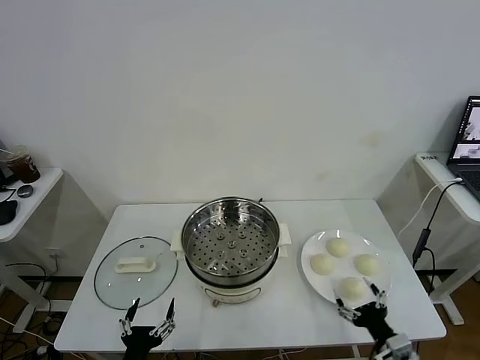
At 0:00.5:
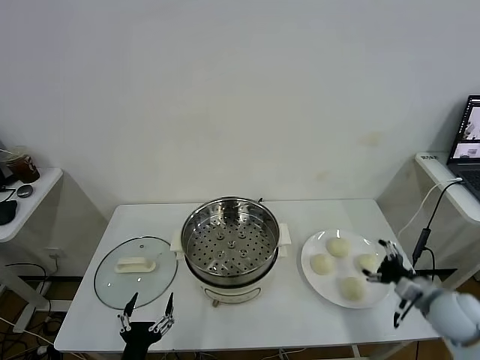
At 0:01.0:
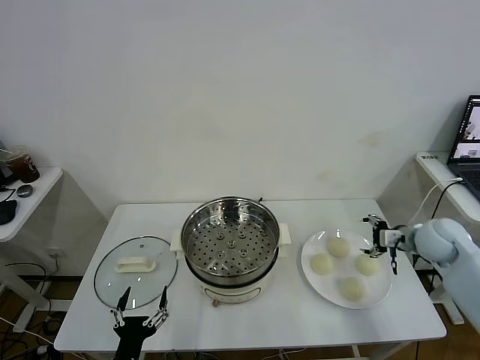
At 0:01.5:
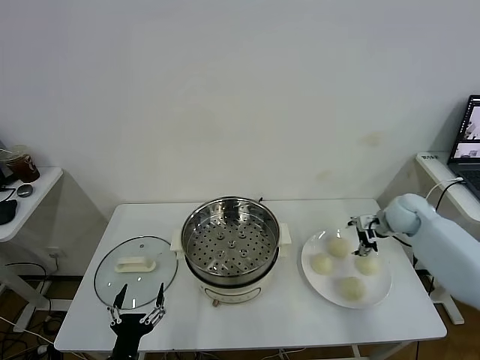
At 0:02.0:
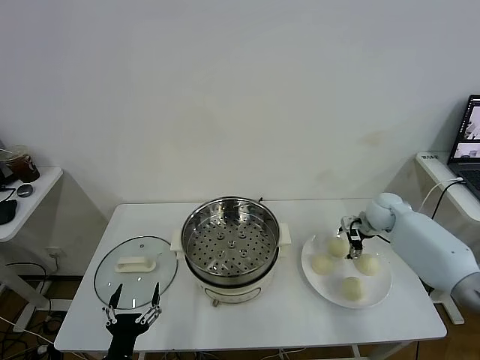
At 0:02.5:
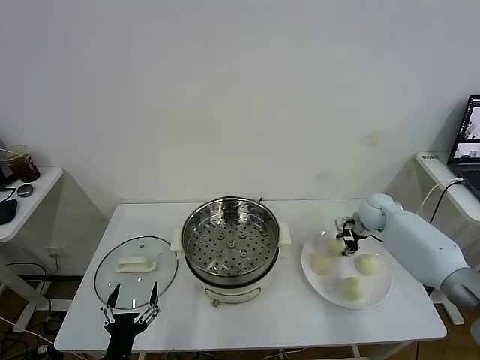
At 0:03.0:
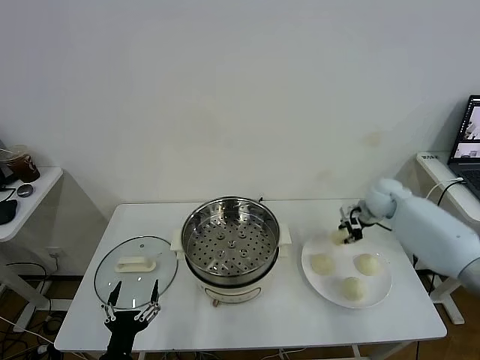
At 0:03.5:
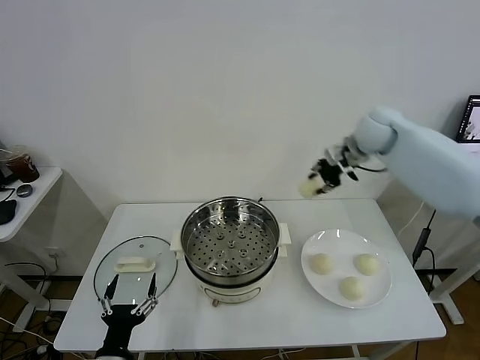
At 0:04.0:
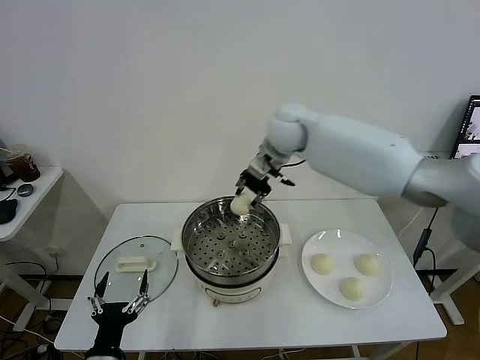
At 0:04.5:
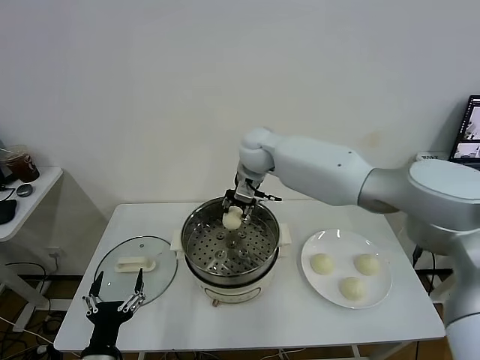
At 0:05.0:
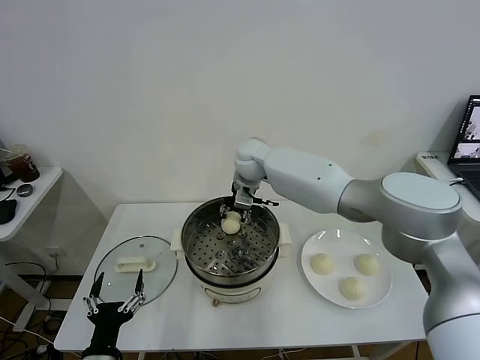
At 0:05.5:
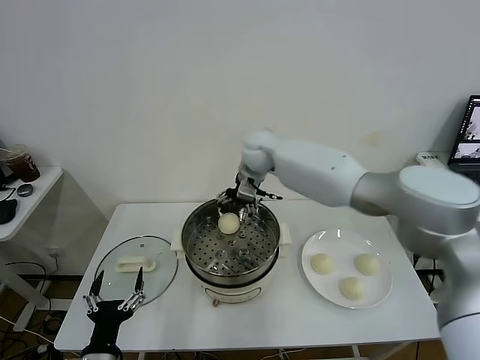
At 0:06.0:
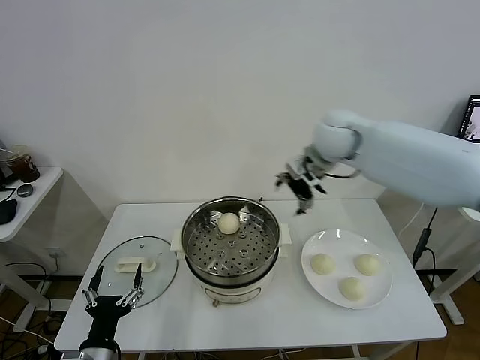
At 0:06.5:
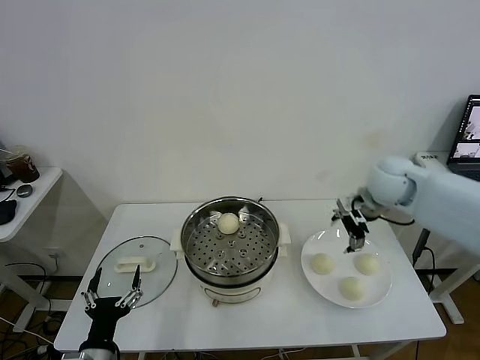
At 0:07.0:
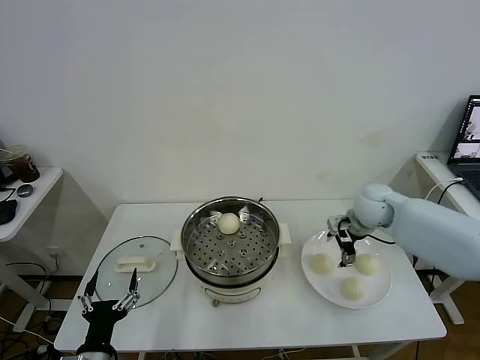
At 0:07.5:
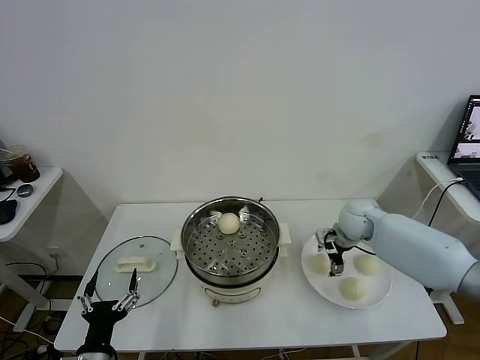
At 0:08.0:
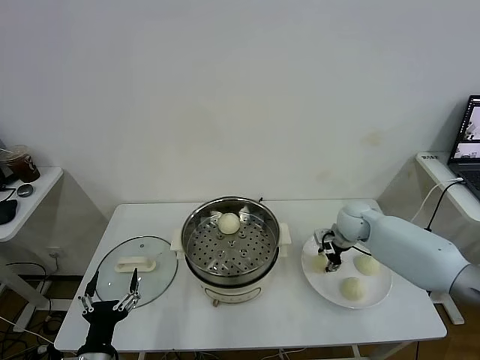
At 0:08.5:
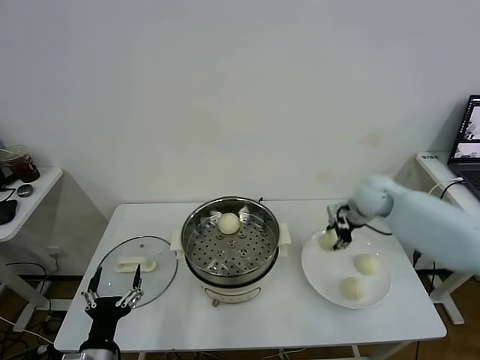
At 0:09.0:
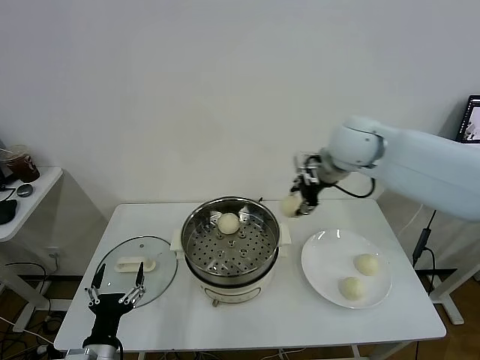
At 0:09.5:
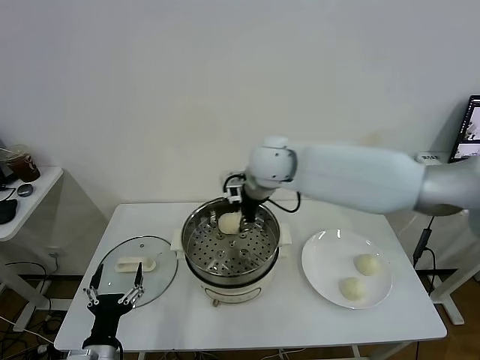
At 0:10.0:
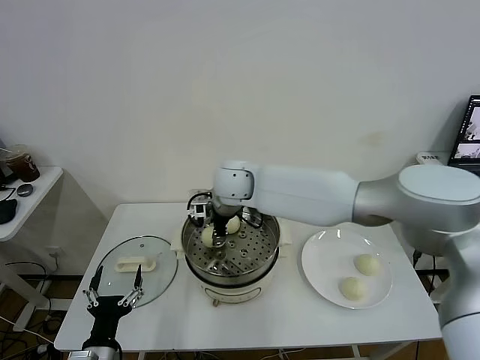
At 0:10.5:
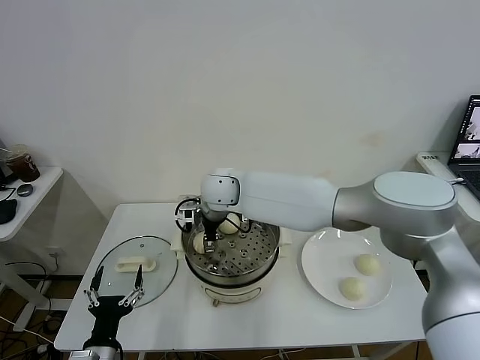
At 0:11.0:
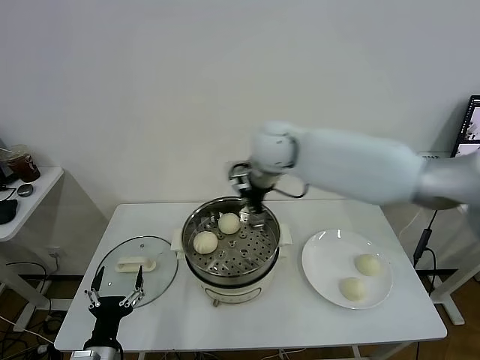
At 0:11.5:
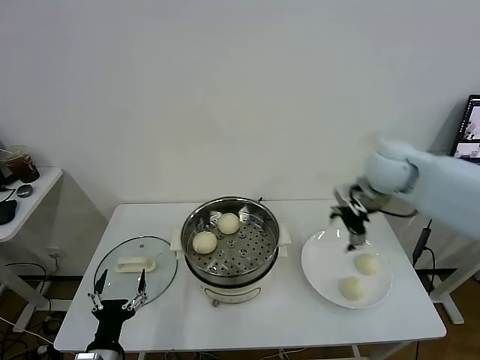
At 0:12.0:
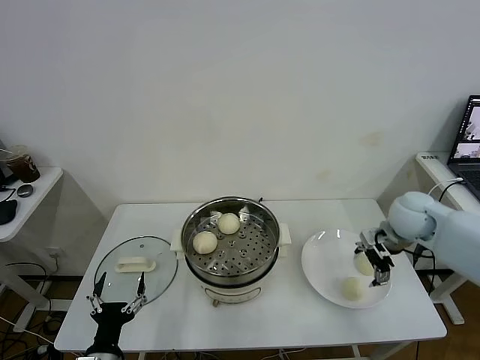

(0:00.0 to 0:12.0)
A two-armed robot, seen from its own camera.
Task of the whole recording: take steamed baozi put them in steamer.
Step, 0:00.0 - 0:02.5: Grasp the baozi in the plate with right gripper.
Step, 0:03.0 - 0:05.5: Place the baozi on the steamer with right gripper.
Step, 0:06.0 - 0:07.5: Grasp the baozi in the plate with right gripper.
Step, 0:08.0 - 0:10.5: Place the baozi on the steamer with right gripper.
0:02.0 - 0:04.0: The right gripper shifts roughly 40 cm to the left and upward, and closes.
0:04.0 - 0:06.0: The right gripper heads to the right, covering approximately 15 cm, and opens up.
0:06.0 - 0:08.0: The right gripper goes roughly 25 cm downward, and closes its fingers.
0:08.0 - 0:10.0: The right gripper moves to the left and upward, about 35 cm.
0:10.0 - 0:12.0: The right gripper heads to the right, covering about 40 cm, and opens its fingers.

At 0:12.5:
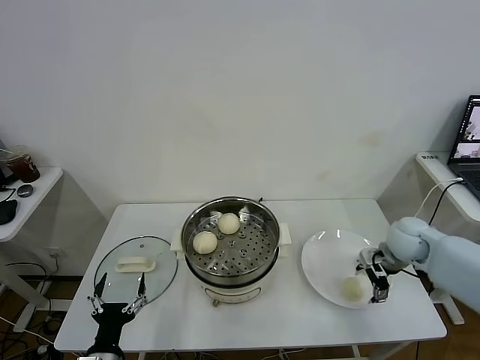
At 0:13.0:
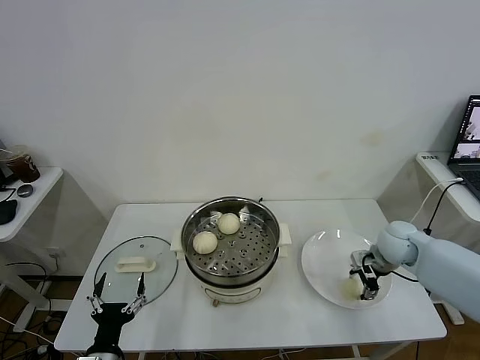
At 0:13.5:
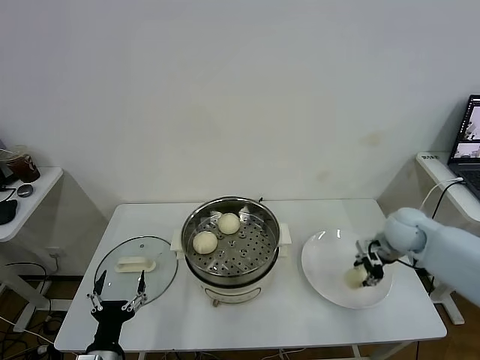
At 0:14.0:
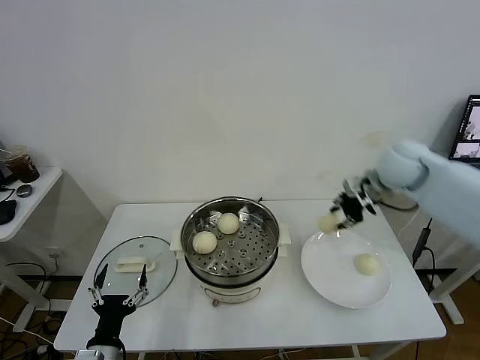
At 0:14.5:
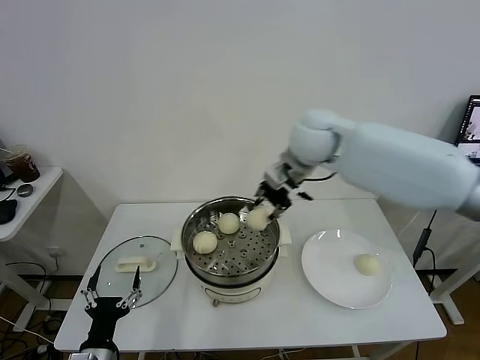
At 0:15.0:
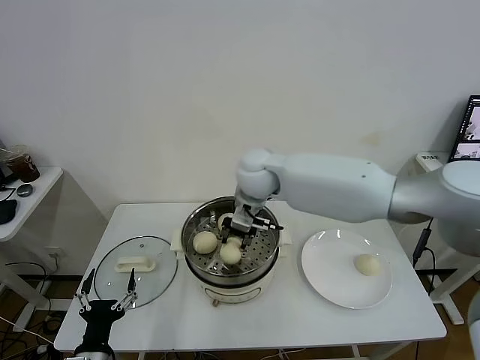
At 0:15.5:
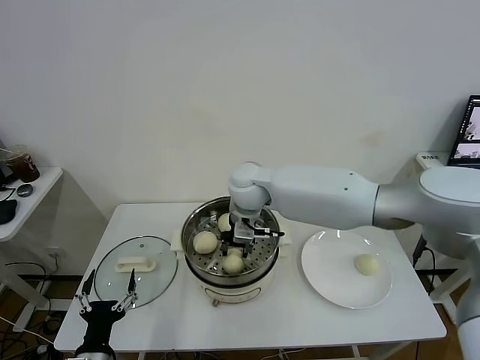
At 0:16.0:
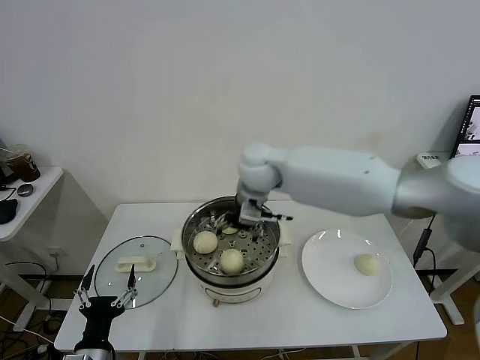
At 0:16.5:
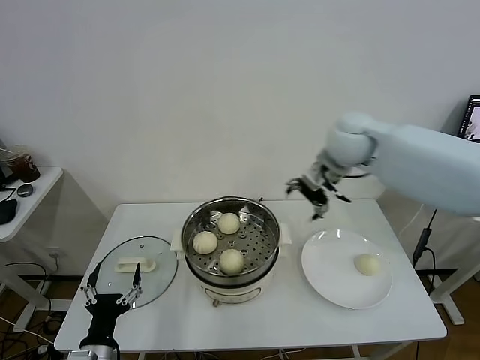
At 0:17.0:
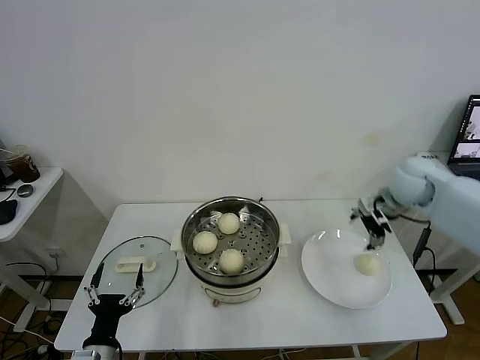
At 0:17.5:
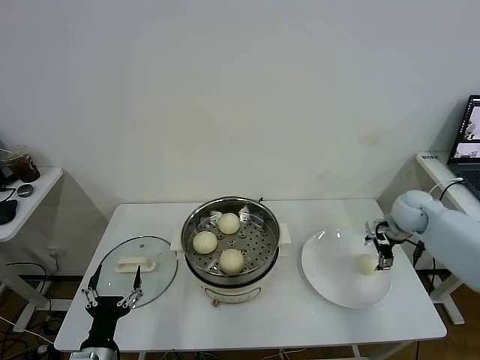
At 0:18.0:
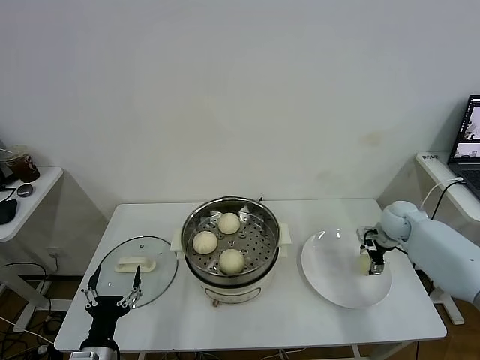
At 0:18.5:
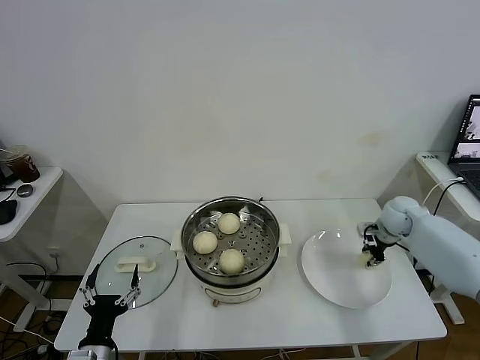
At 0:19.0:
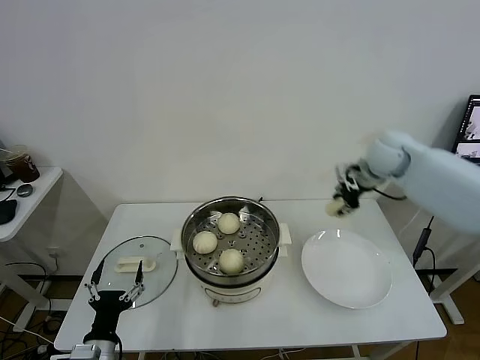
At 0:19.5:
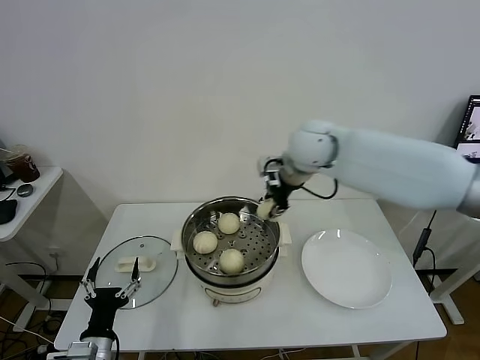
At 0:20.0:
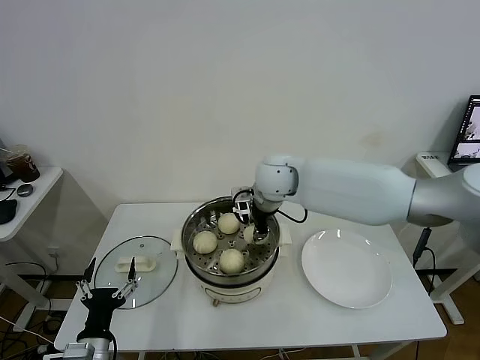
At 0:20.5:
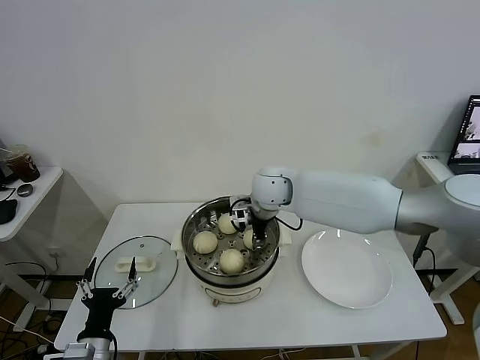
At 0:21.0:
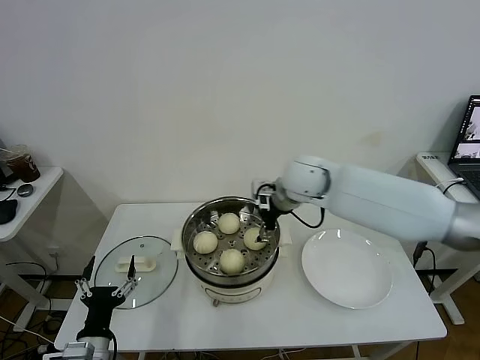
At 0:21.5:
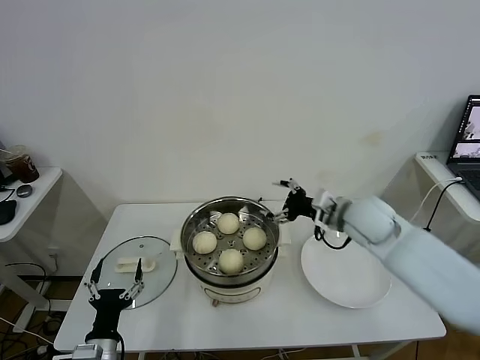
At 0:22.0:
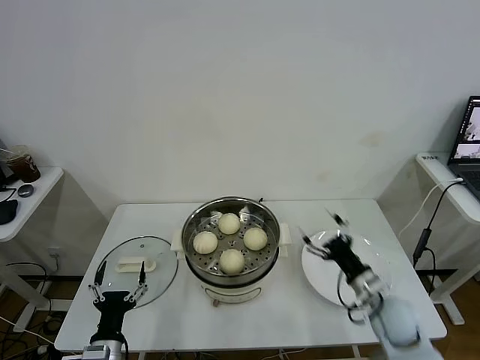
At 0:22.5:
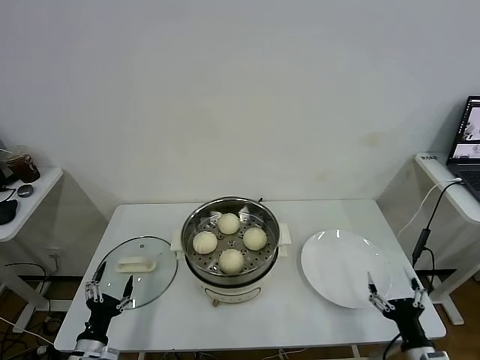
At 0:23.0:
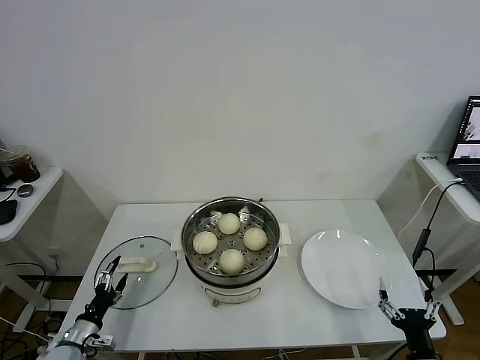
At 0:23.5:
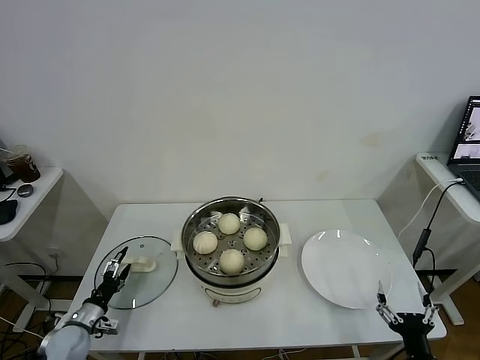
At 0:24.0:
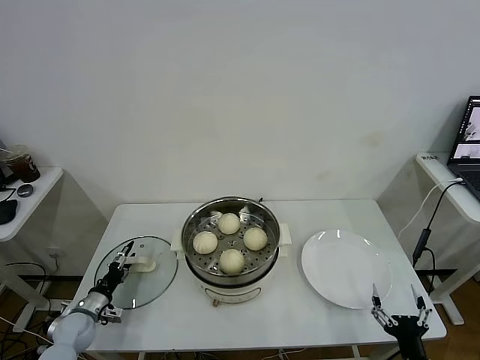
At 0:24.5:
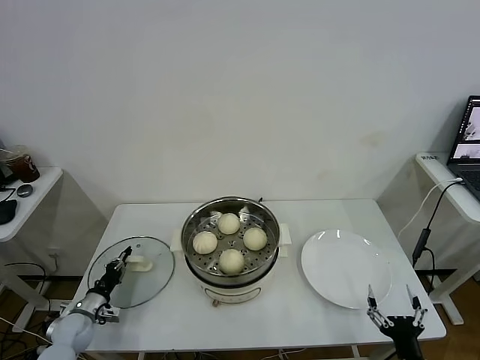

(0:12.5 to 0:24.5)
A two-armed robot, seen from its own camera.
Task of the whole recording: take steamed baozi put them in steamer.
Step, 0:13.5 - 0:15.5: Place the baozi on the steamer with right gripper.
Step, 0:16.0 - 0:18.0: Grasp the baozi in the plate with right gripper.
Step, 0:18.5 - 0:21.0: Place the baozi on the steamer with right gripper.
0:12.5 - 0:14.5: The right gripper is displaced to the left and upward by about 35 cm, and closes up.
0:14.5 - 0:16.5: The right gripper goes about 10 cm to the right, and opens.
0:16.5 - 0:18.5: The right gripper heads downward and to the right, covering about 30 cm, and closes its fingers.
0:18.5 - 0:20.5: The right gripper travels to the left by some 35 cm, and opens up.
0:20.5 - 0:22.5: The right gripper goes some 50 cm backward, to the right and downward, and opens. Meanwhile the left gripper goes some 5 cm downward.
0:22.5 - 0:24.5: The right gripper changes place by approximately 5 cm. The left gripper travels forward and to the left by some 15 cm, and closes.

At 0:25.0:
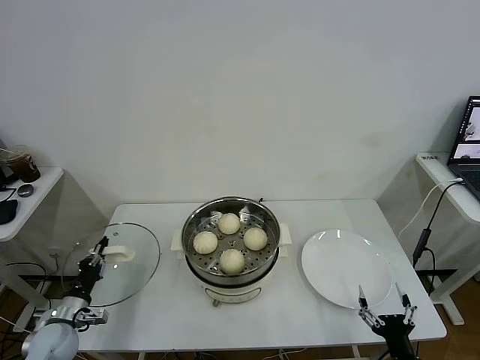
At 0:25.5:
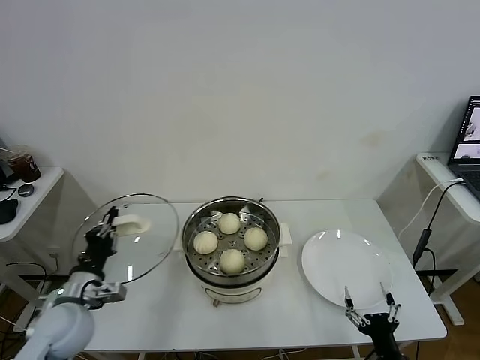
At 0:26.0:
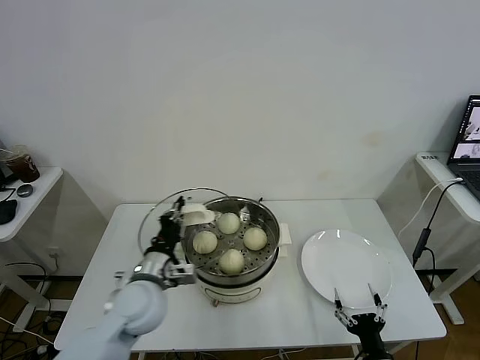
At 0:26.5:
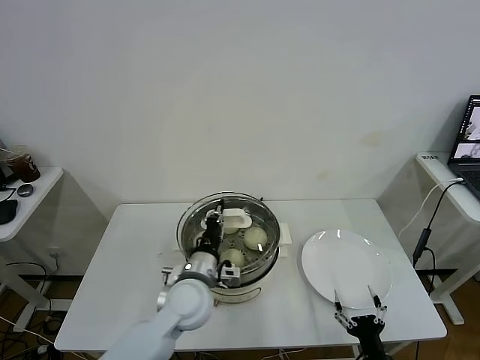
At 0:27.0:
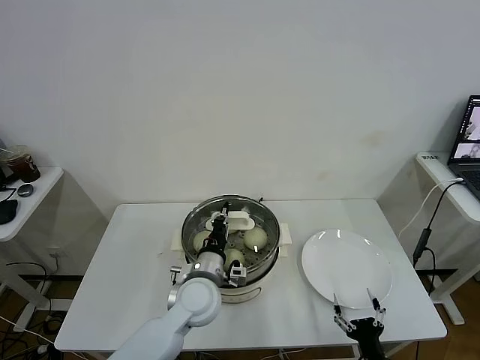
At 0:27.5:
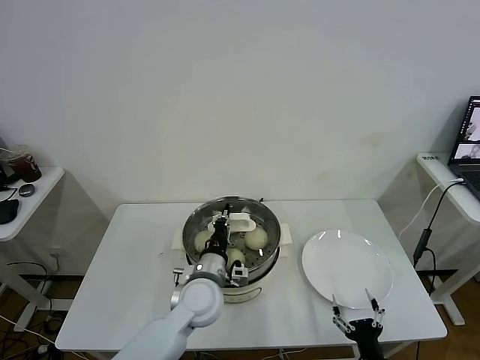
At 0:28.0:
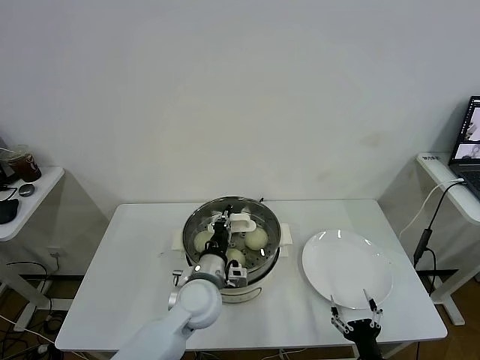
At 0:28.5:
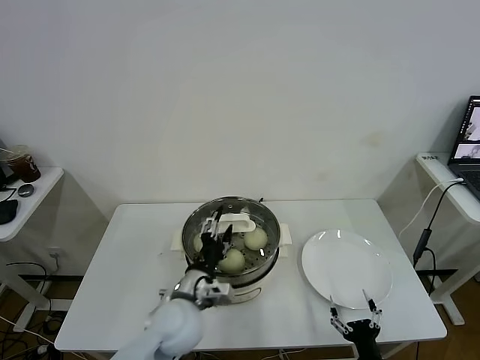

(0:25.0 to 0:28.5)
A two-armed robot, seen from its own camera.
Task of the whole recording: take steamed baozi put them in steamer.
0:25.0 - 0:27.0: The right gripper ends up roughly 5 cm from where it was; the left gripper travels to the right by about 35 cm.
0:27.0 - 0:28.5: The left gripper opens.
